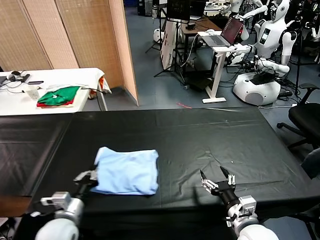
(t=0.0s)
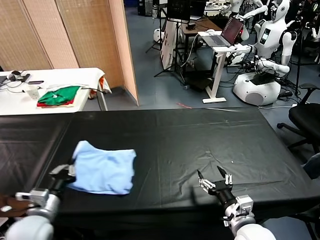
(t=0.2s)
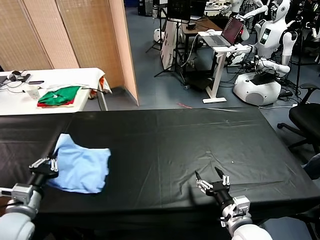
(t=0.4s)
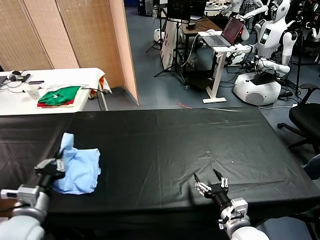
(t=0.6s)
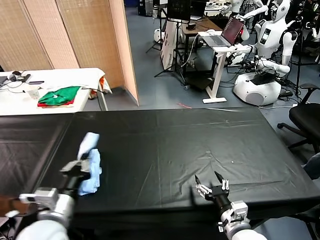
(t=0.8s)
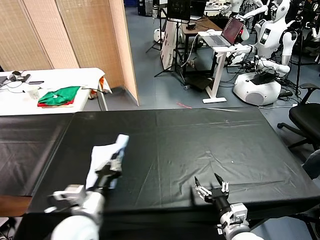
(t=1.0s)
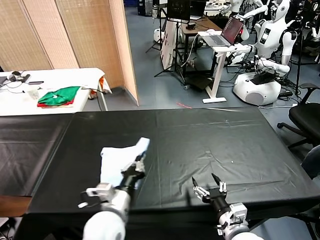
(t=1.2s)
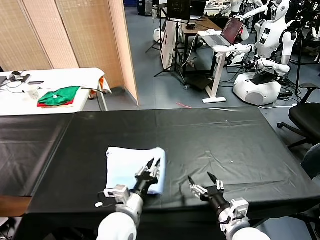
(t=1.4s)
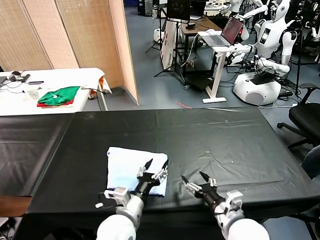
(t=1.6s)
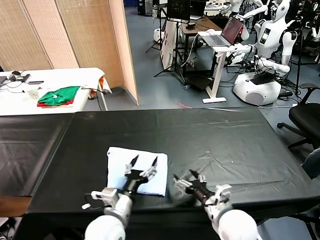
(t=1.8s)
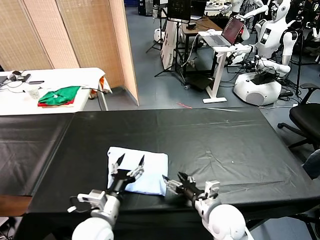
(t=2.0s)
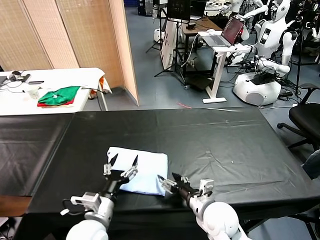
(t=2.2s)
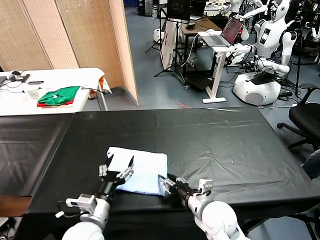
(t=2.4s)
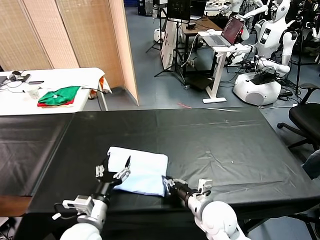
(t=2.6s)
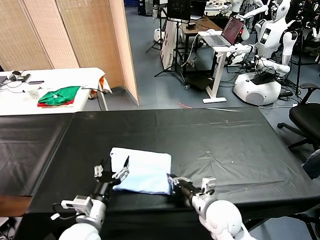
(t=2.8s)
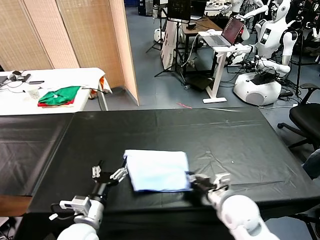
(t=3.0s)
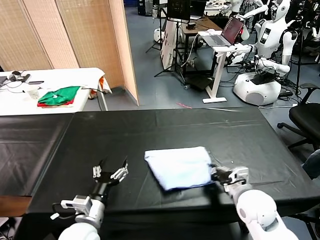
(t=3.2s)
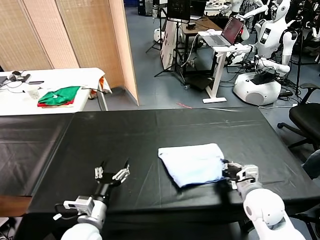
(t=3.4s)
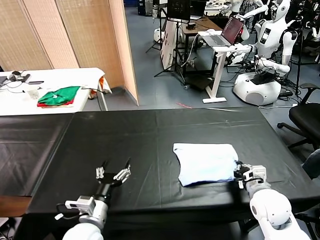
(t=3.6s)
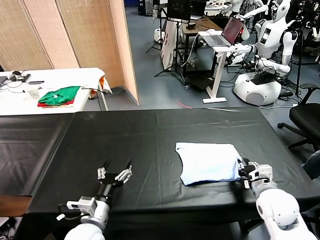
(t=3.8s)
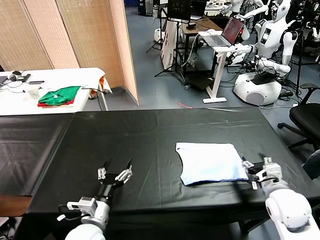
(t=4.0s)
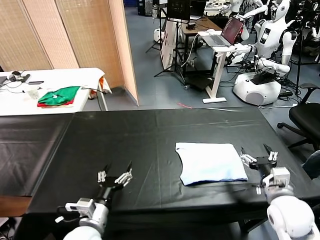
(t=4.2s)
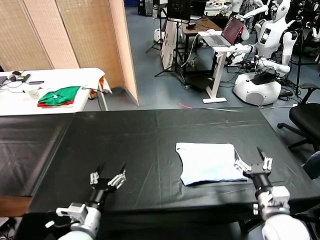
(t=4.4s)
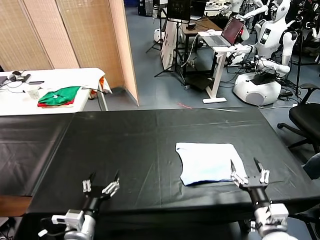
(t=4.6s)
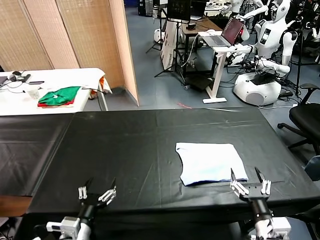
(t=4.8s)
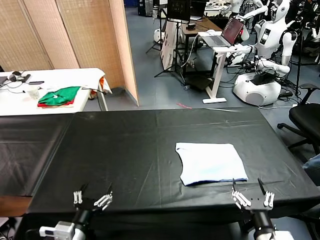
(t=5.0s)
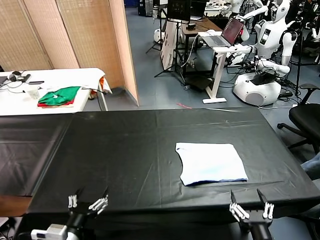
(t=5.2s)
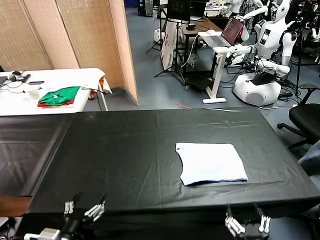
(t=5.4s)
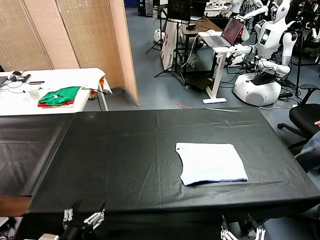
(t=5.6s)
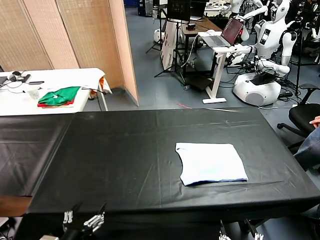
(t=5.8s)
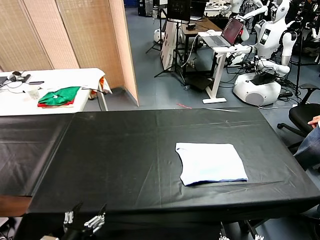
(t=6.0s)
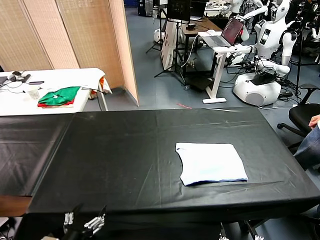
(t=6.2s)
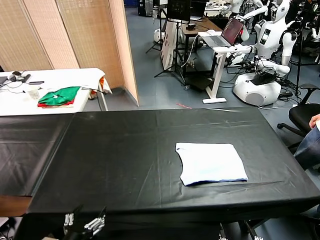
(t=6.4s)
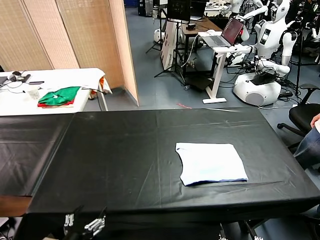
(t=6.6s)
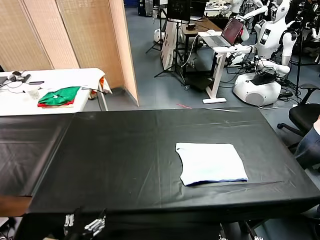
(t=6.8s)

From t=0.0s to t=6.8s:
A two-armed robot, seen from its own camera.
Task of the whole recording: fold and organize the clothes.
Step, from t=1.8s to t=3.8s: Drag the clothes to the center of the table.
From t=0.0s to t=1.4s: The left gripper shifts some 15 cm to the right.
From t=1.4s to t=2.8s: The right gripper shifts some 10 cm forward and to the left, and closes its fingers. The left gripper shifts some 10 cm to the left, and opens.
From t=2.8s to t=4.0s: The right gripper shifts some 15 cm to the right, and opens up.
From t=4.0s to t=5.4s: The right gripper is displaced backward and to the left by some 25 cm, and opens. The left gripper moves backward and to the left, about 10 cm.
From t=5.4s to t=6.8s: There are only small adjustments of the grippers.
